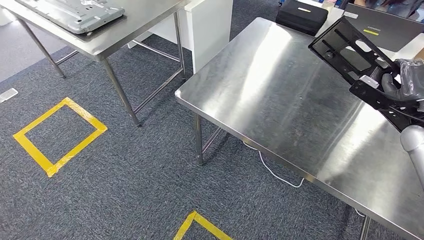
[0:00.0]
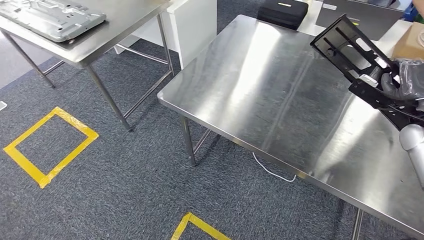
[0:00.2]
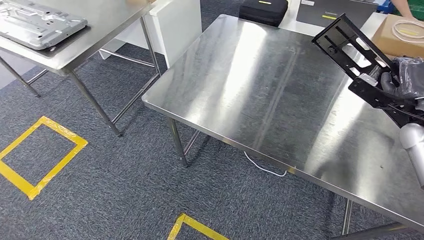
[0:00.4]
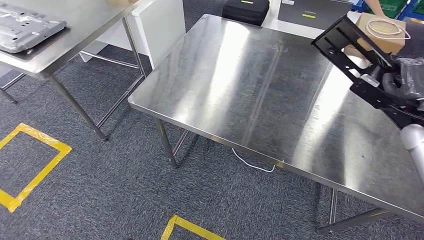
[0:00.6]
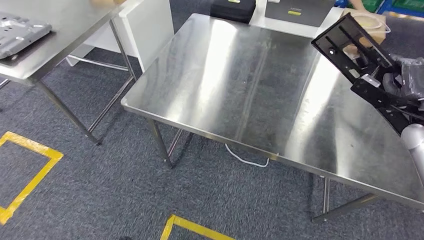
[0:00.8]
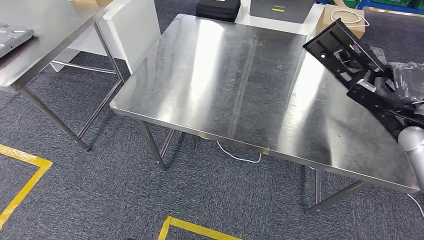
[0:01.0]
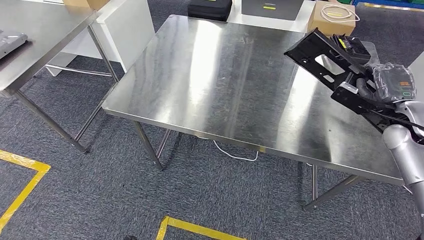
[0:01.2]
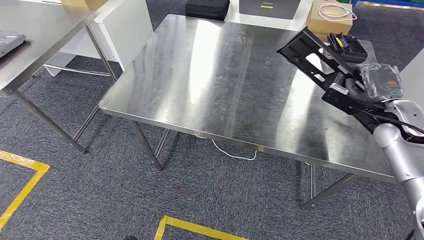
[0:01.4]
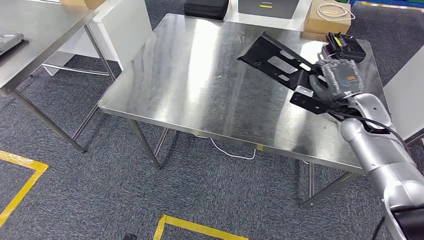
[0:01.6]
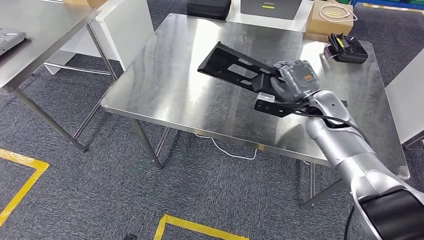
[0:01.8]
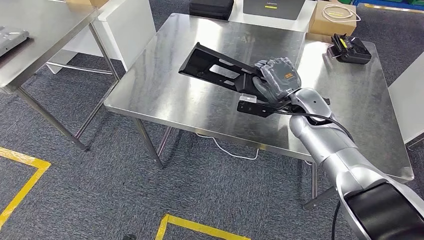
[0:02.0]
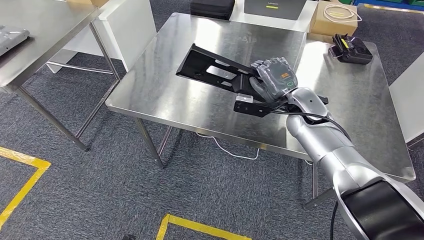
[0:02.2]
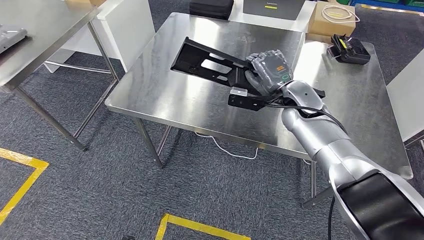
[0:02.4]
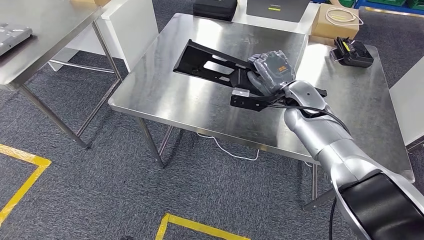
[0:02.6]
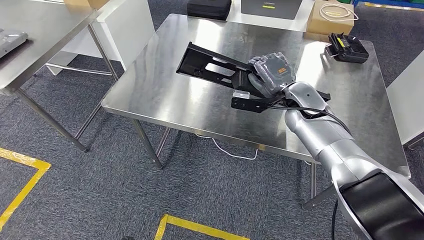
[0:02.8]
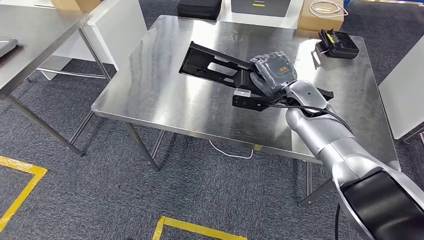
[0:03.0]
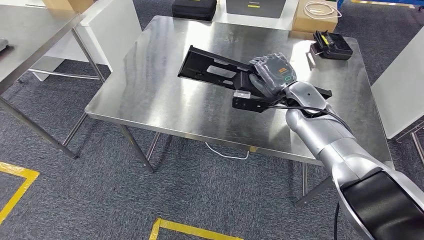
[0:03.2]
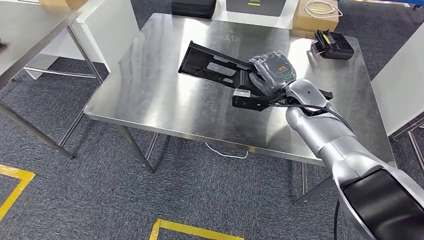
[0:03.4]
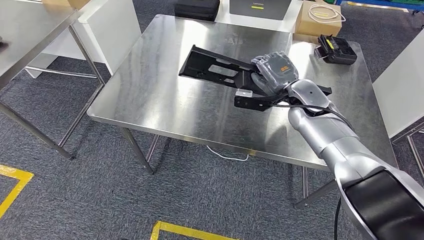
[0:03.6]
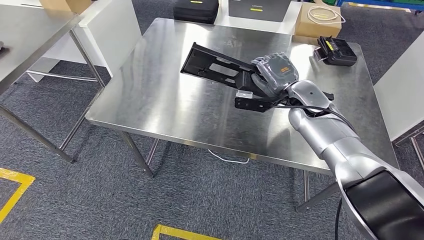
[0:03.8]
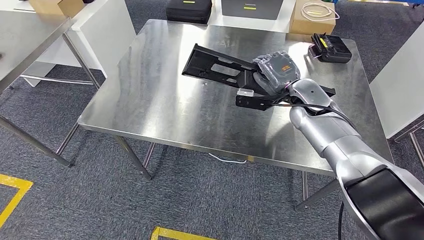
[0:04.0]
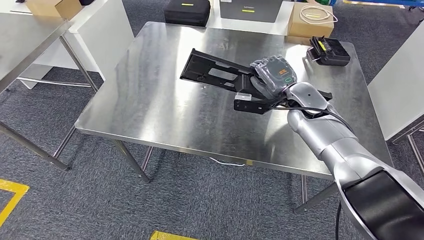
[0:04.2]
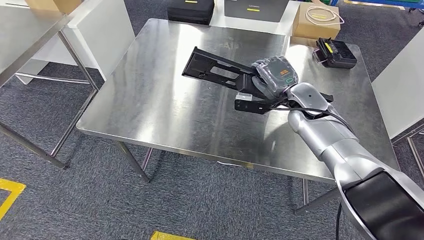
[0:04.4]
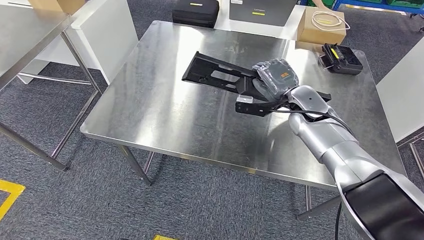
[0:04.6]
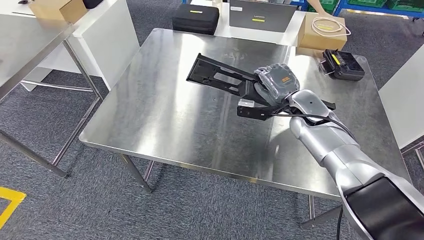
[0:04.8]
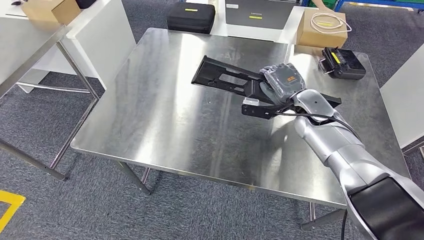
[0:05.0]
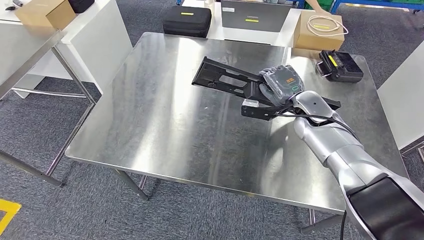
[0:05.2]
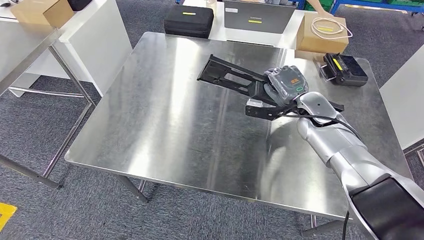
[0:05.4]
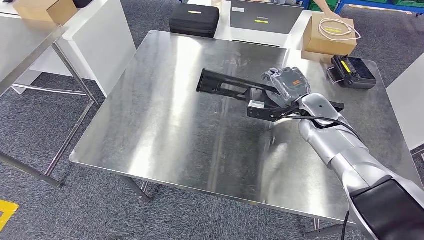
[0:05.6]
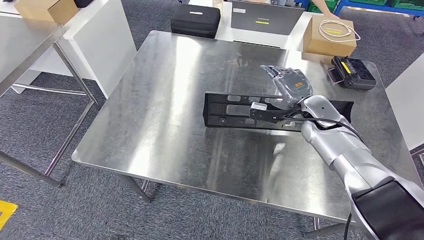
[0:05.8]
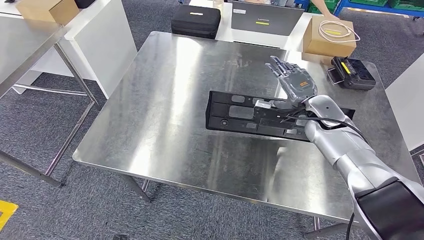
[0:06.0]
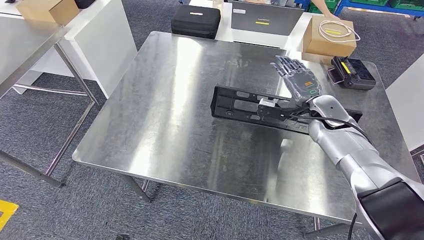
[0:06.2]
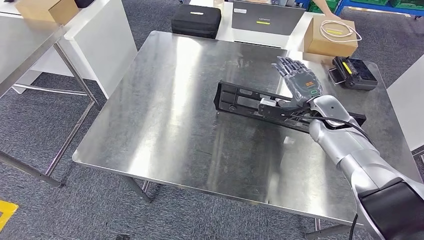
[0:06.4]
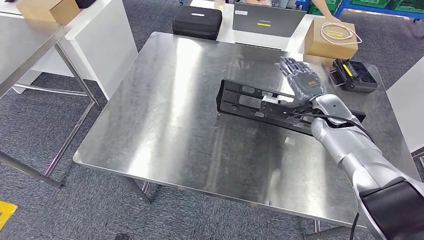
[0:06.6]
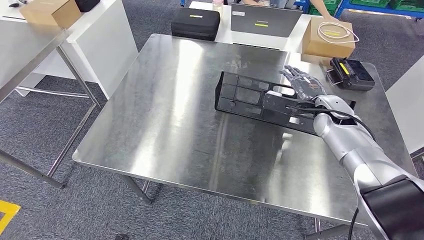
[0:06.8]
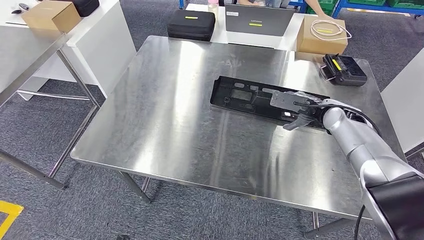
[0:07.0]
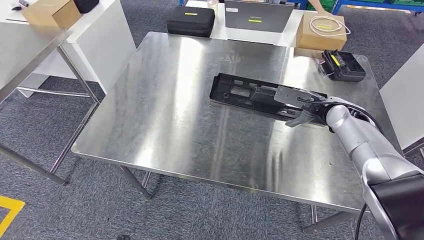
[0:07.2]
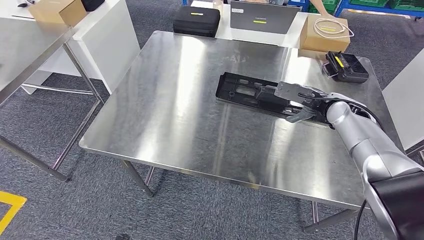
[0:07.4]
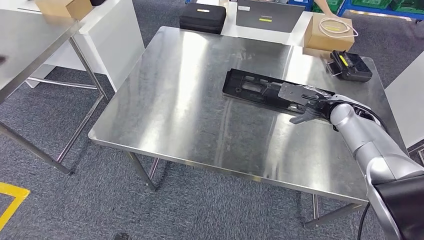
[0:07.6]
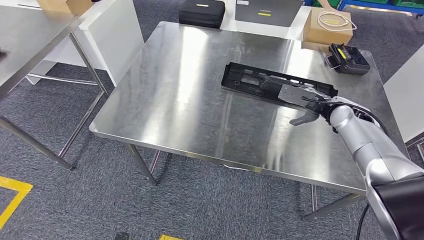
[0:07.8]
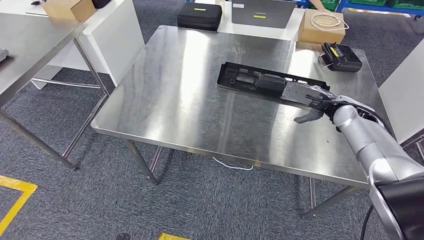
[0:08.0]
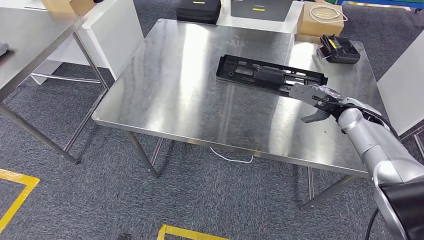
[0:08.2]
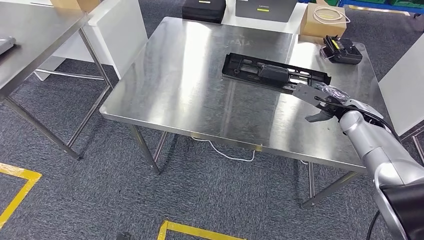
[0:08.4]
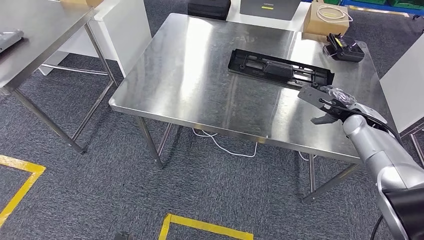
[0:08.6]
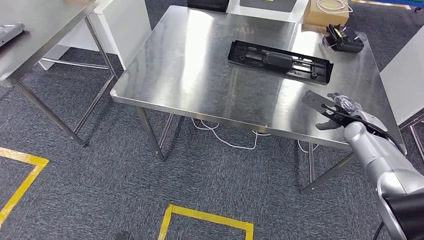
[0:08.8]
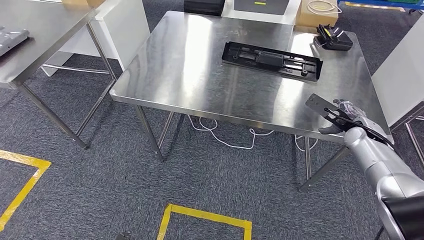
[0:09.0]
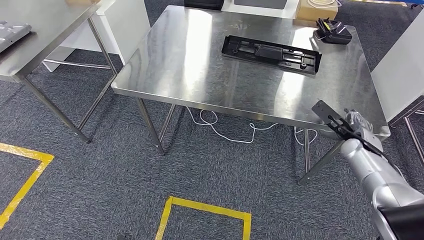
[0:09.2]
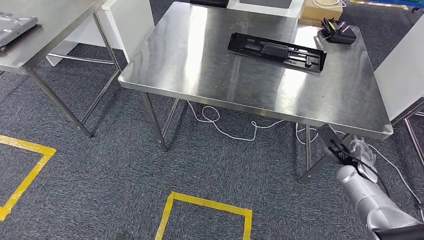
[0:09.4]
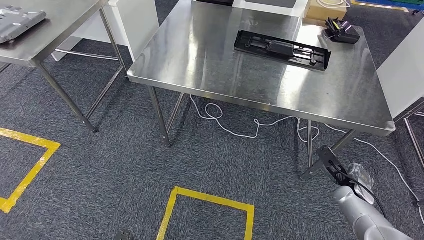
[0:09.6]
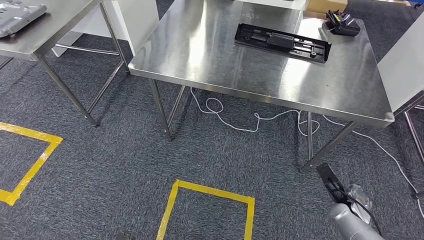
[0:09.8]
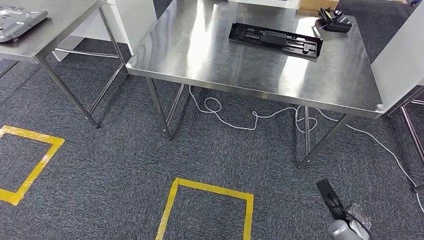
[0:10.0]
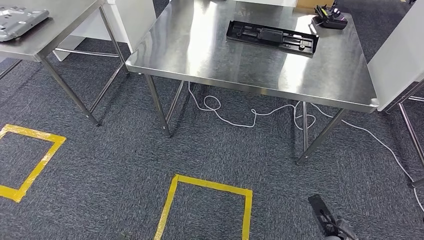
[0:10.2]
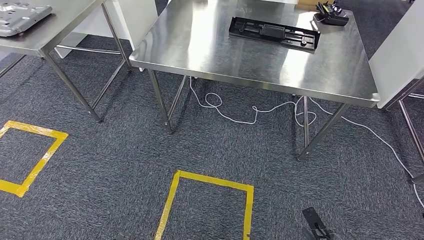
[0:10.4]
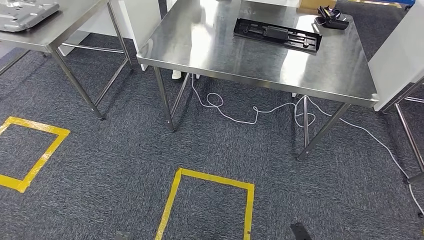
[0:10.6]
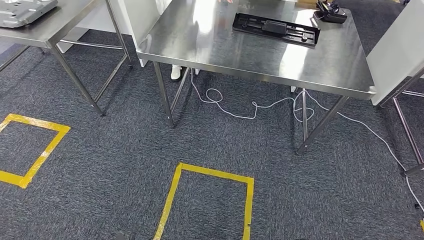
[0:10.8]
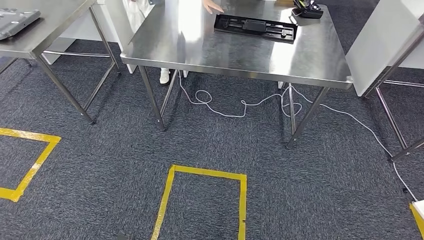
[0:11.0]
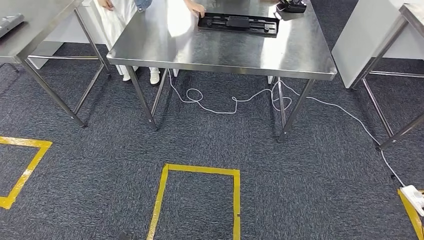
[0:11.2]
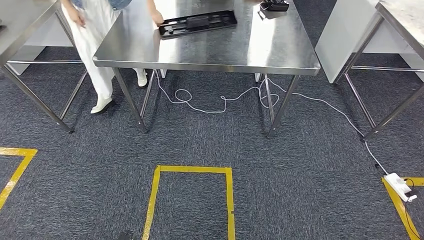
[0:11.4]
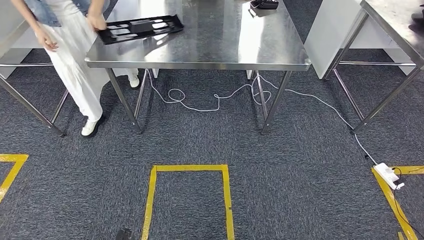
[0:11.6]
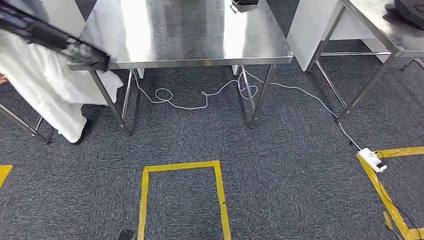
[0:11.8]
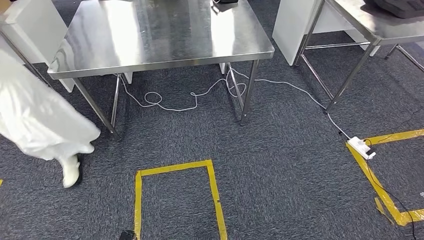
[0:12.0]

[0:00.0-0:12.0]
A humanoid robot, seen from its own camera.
Step, 0:00.0 to 0:06.4: Insert the large material into the corresponding slot on the workbench.

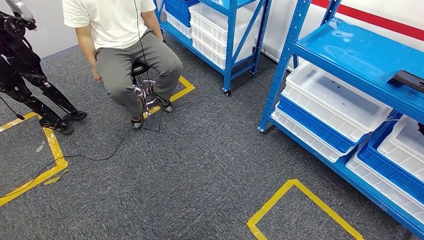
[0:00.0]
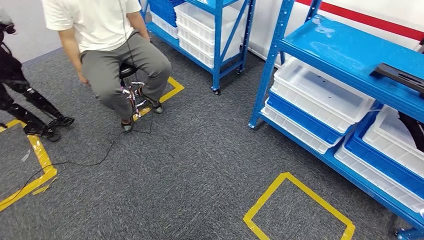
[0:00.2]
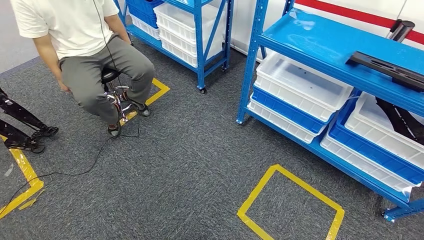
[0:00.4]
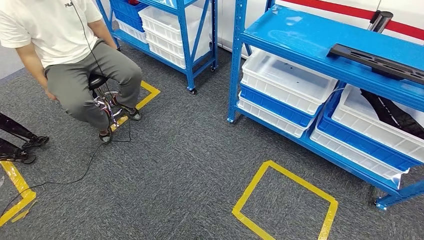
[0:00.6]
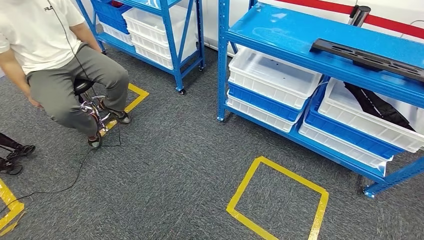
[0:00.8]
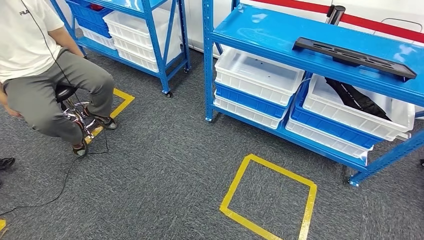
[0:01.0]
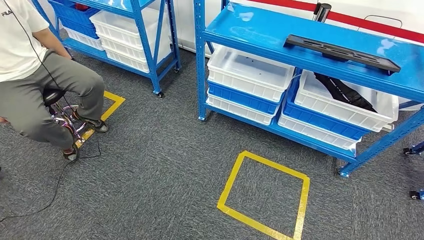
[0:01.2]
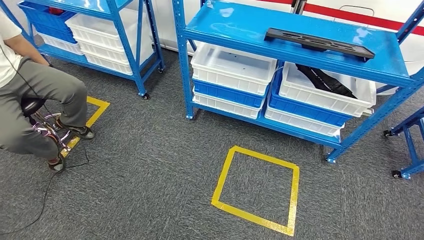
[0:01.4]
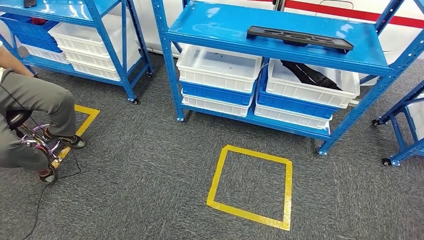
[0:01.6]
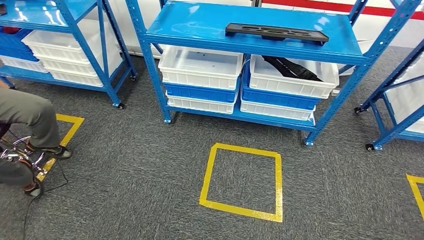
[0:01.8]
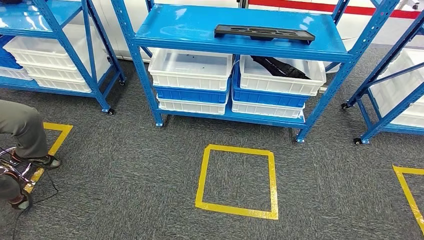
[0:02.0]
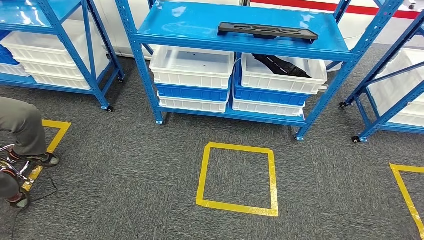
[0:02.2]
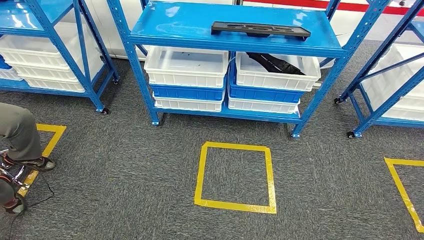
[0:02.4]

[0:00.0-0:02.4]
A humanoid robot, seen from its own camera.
Step, 0:00.0 to 0:02.4: Return to the initial position at the shelf.
